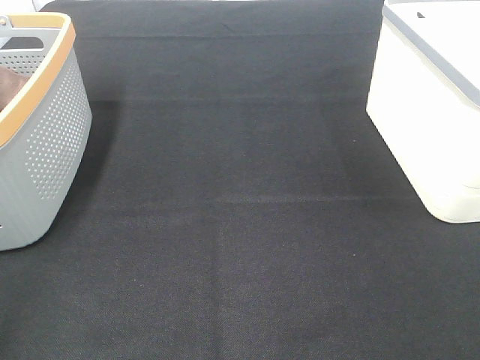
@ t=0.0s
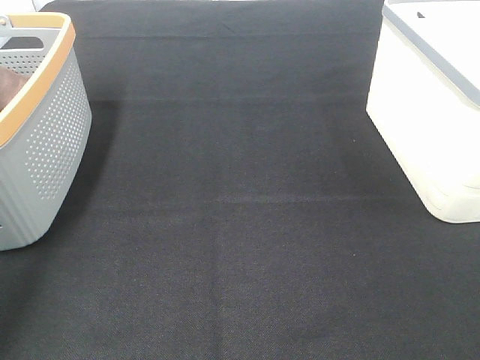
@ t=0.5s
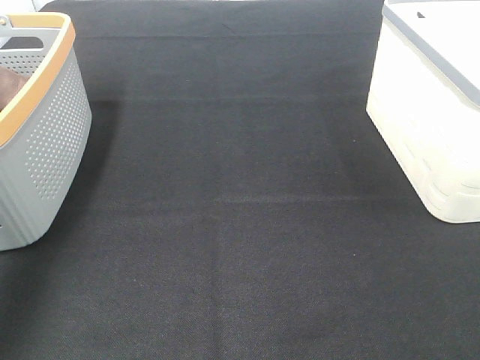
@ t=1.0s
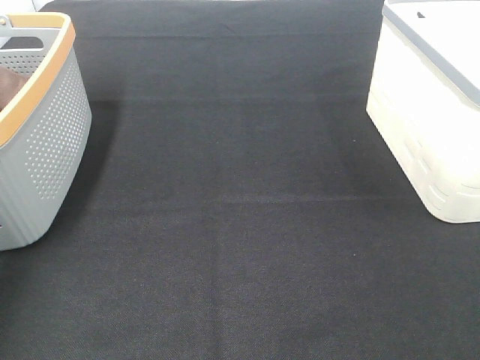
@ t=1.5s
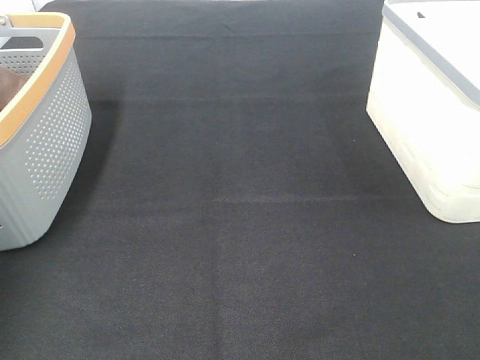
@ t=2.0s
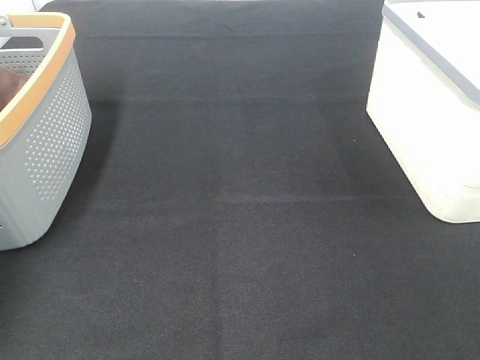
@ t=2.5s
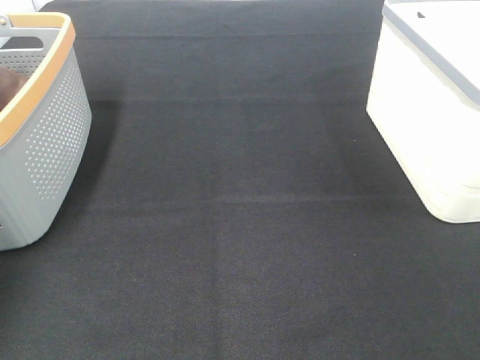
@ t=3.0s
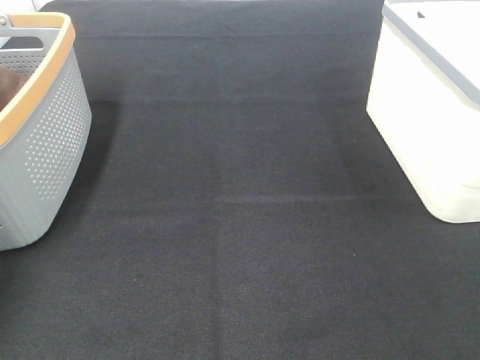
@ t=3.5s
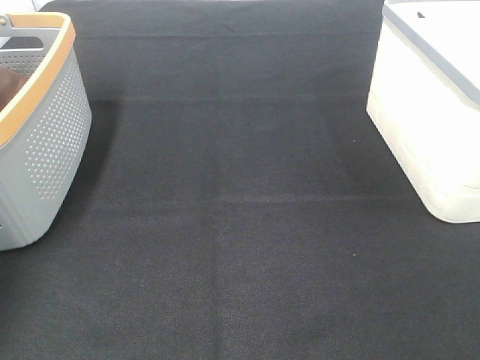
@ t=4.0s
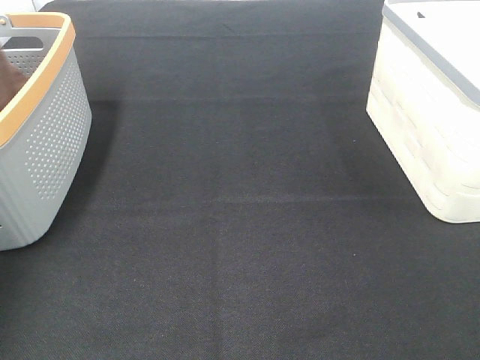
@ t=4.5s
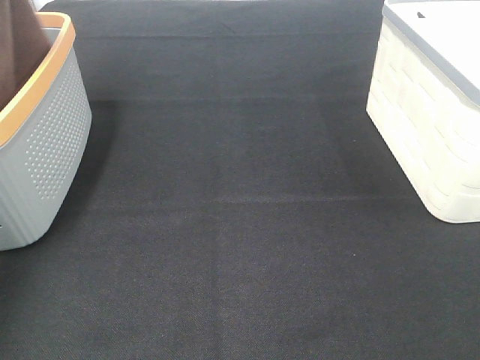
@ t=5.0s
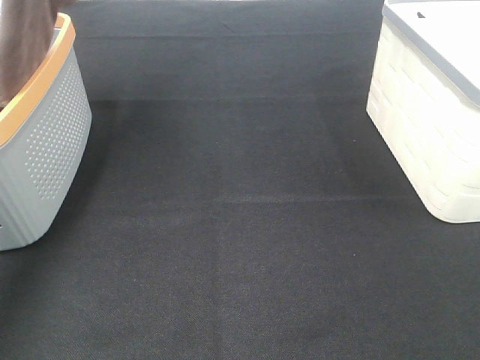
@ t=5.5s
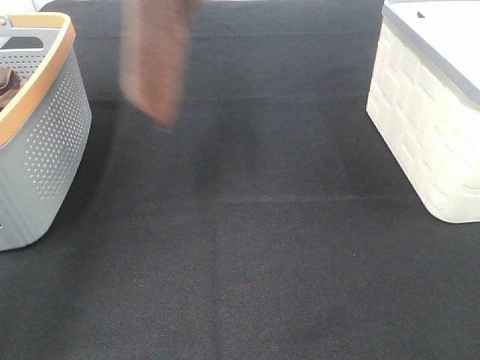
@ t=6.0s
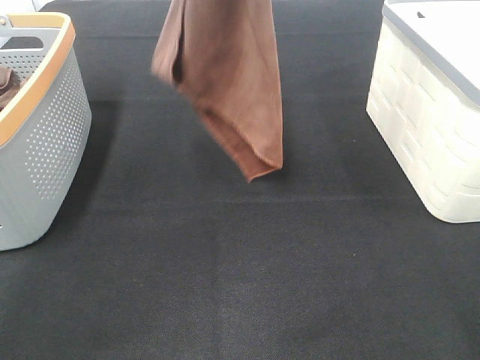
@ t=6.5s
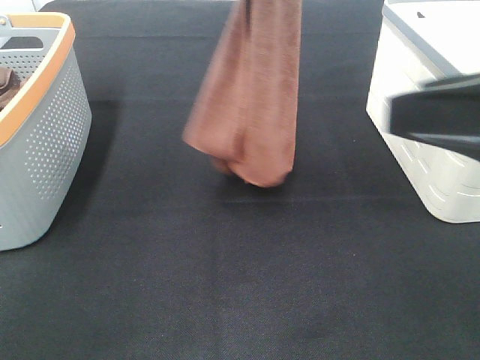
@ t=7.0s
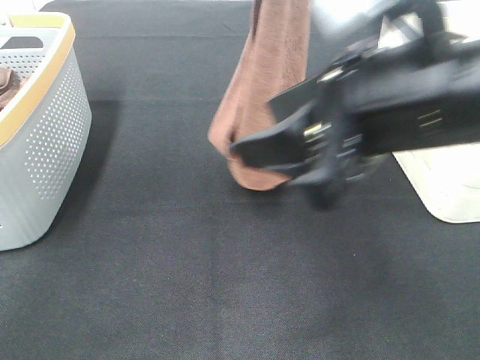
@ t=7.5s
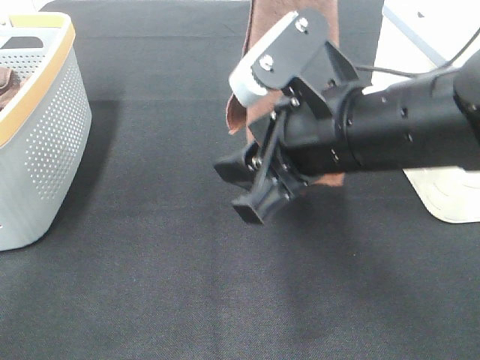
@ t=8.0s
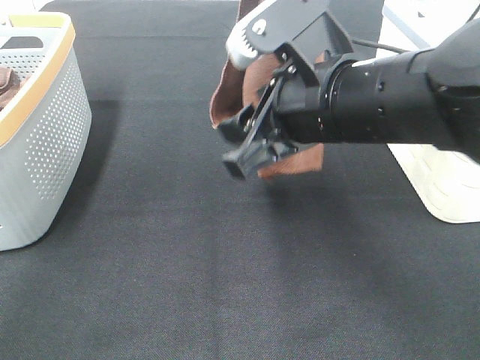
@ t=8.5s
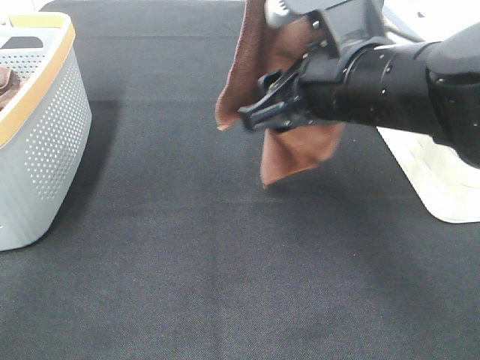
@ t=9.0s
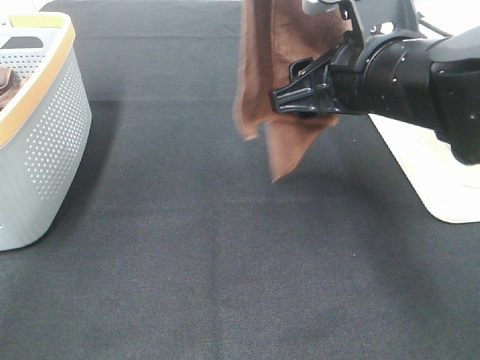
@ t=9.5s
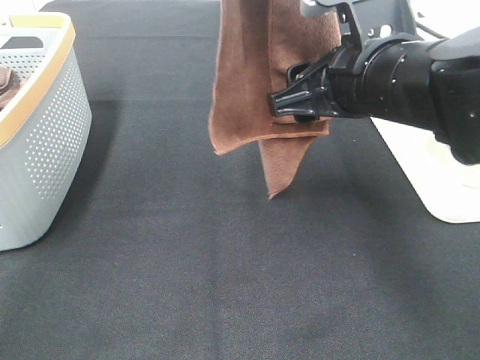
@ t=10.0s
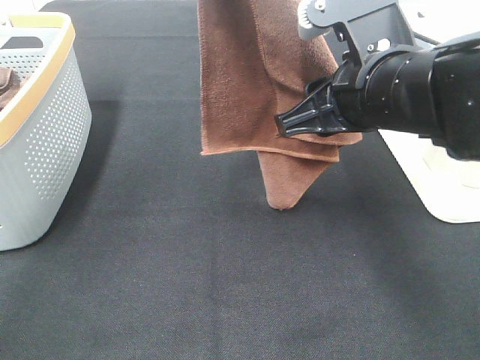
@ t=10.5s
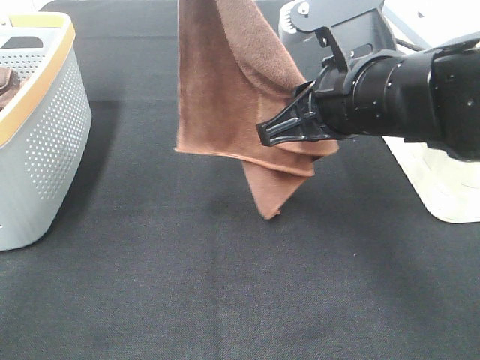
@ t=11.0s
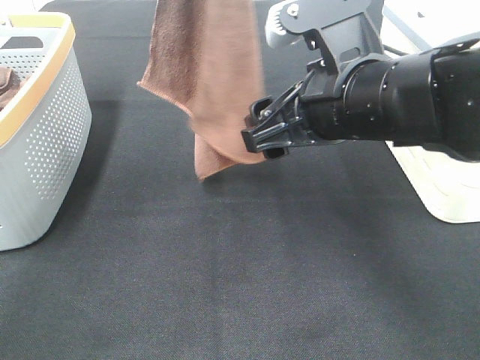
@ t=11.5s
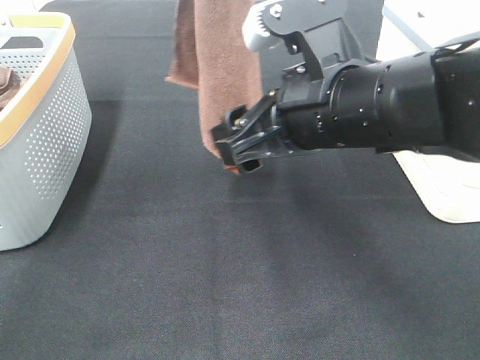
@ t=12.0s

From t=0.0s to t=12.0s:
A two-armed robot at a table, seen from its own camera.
Task of the whole recording: Remove the towel and place it.
From t=0.0s to t=2.0s: The left gripper goes roughly 40 cm forward.
From t=4.0s to t=6.0s: The left gripper shifts about 30 cm to the right, upward and backward.
From t=6.0s to t=8.0s: The right gripper is displaced forward and to the left by approximately 30 cm. The left gripper travels to the right and downward by about 15 cm.
From t=8.0s to t=10.0s: The right gripper moves roughly 5 cm.

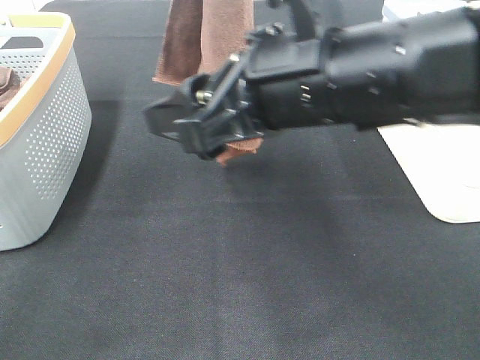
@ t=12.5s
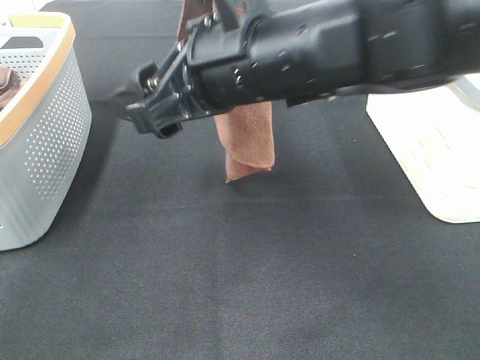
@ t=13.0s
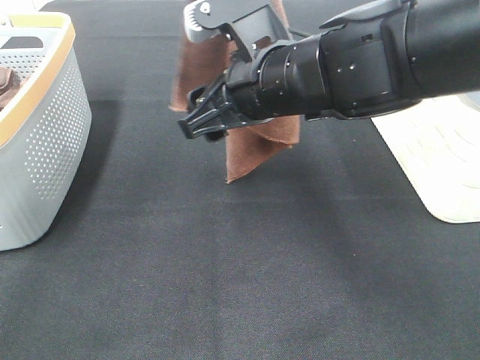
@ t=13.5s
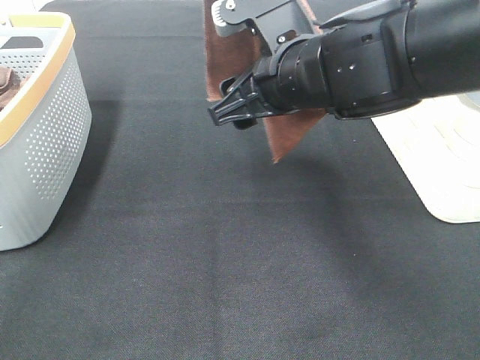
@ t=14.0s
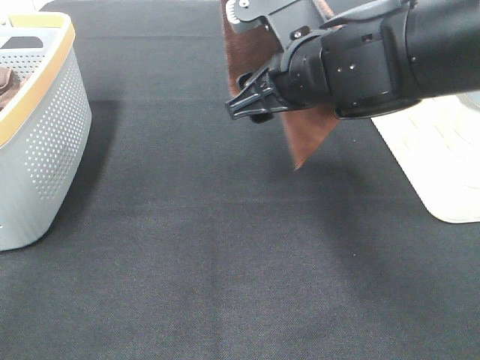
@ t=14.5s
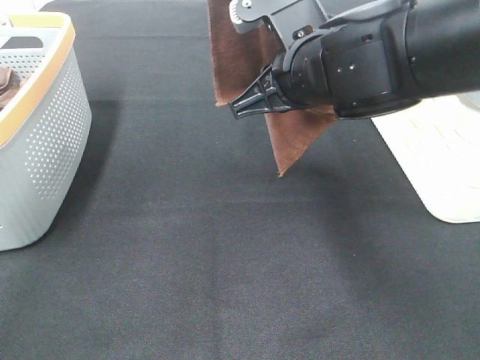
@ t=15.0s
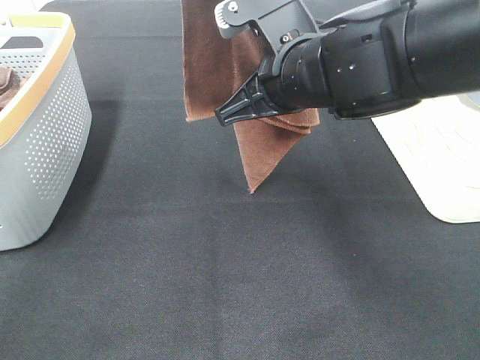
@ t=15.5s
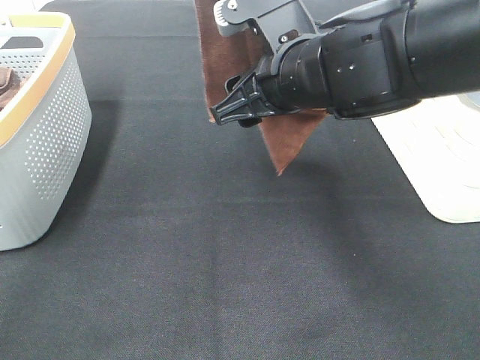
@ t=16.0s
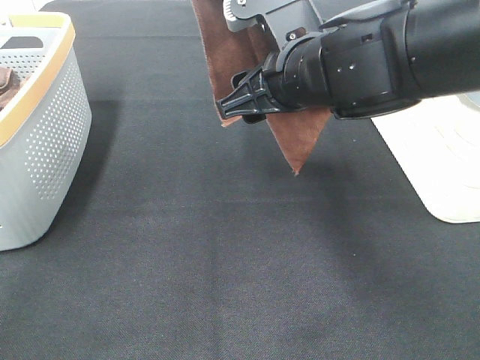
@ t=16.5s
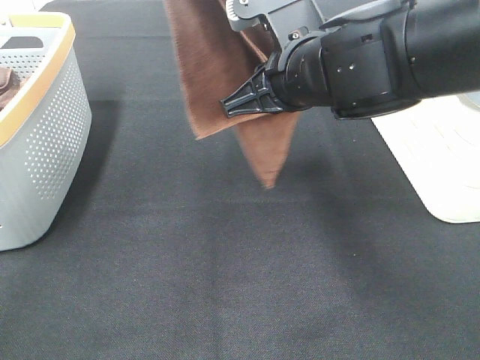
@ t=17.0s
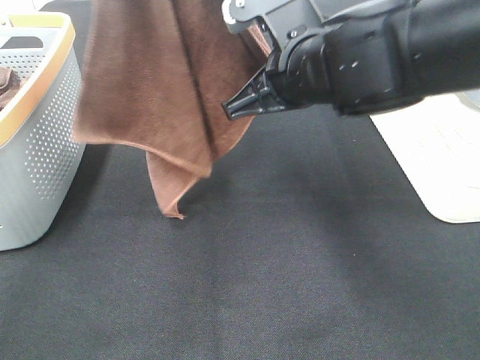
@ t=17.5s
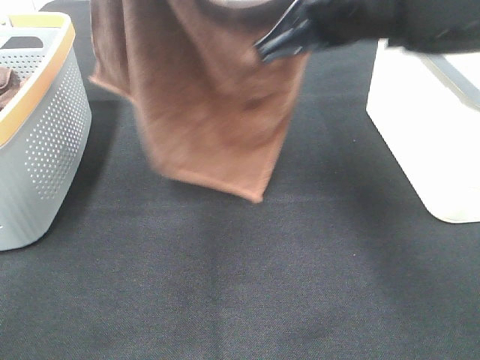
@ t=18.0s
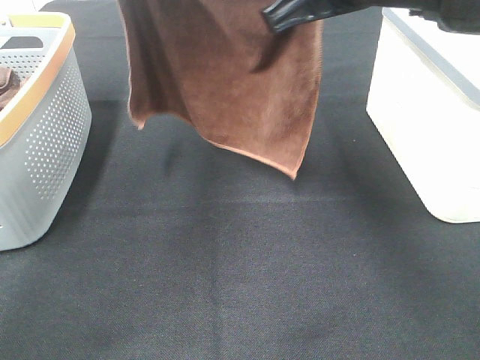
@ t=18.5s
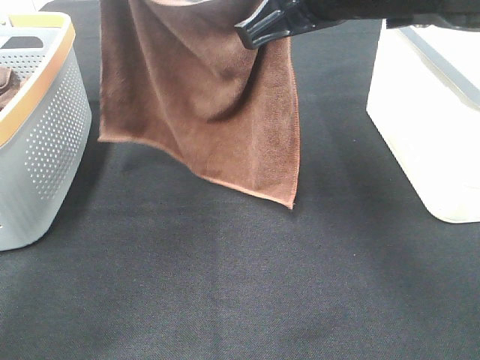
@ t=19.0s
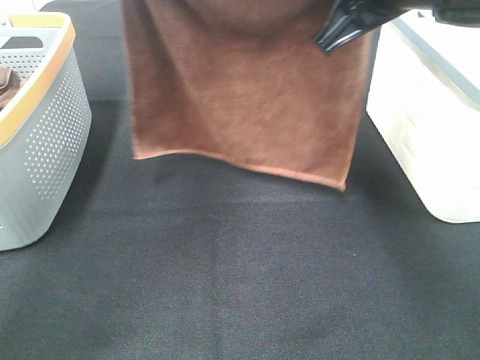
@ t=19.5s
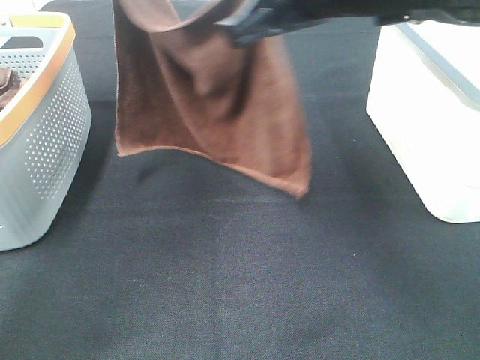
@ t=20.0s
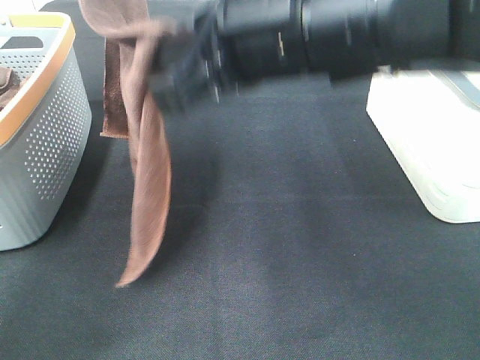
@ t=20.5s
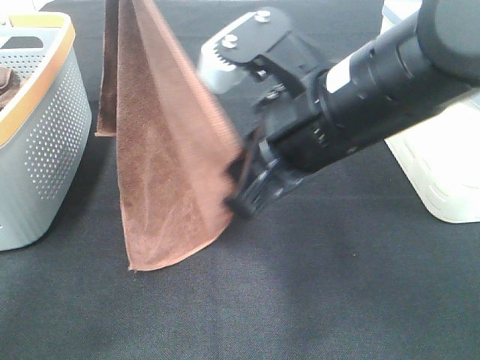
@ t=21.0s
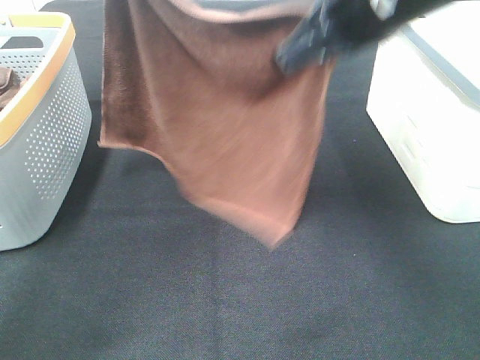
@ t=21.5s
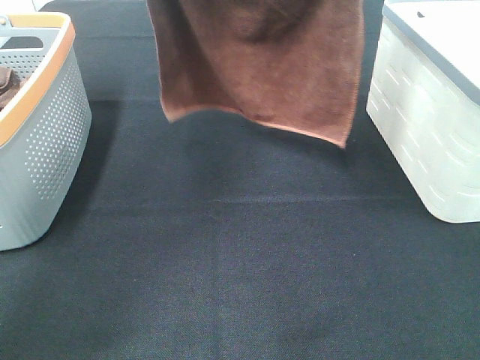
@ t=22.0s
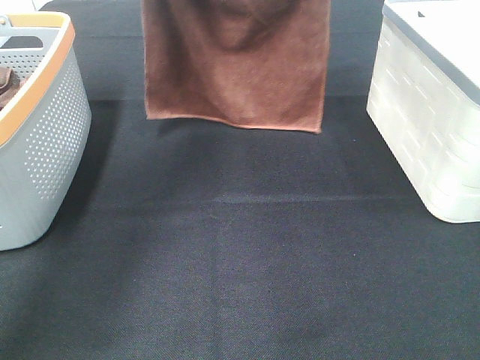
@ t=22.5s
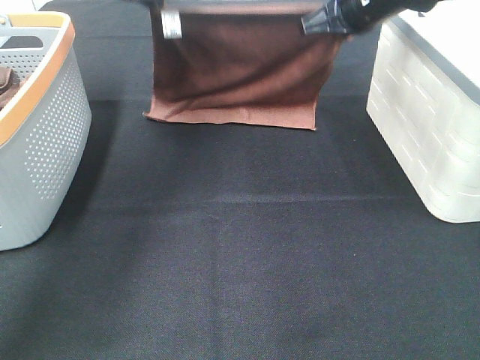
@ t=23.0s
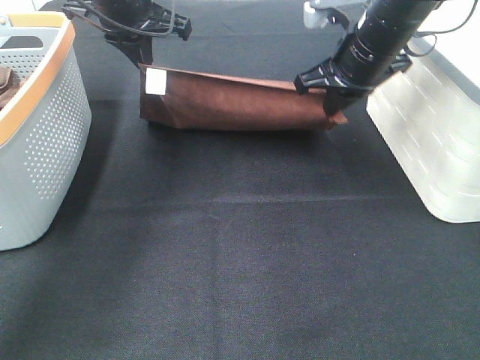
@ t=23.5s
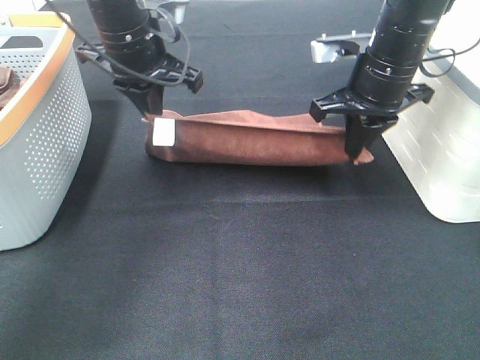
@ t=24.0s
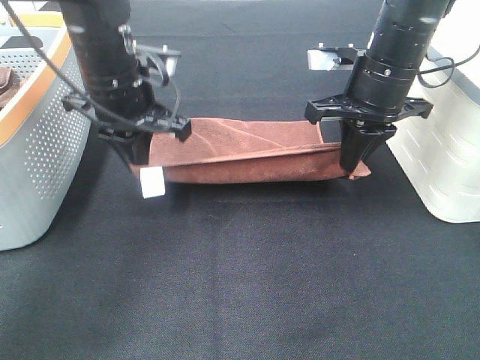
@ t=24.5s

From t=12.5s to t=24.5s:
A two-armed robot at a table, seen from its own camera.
Task of the whole recording: Remove the towel and place it.
Step, from t=12.5s to t=16.0s: Right hand: grab a corner of the brown towel and straighten it.
Step, from t=16.5s to t=19.0s: Left hand: spread the brown towel flat on the table.
Step, from t=16.5s to t=19.0s: Right hand: spread the brown towel flat on the table.
From t=12.5s to t=14.5s: The right gripper travels forward by approximately 10 cm.
From t=14.5s to t=16.5s: The right gripper closes, then reopens.
From t=16.5s to t=18.5s: The right gripper heads upward, covering approximately 10 cm, and closes its fingers; the left gripper goes roughly 10 cm forward.
From t=18.5s to t=20.5s: The right gripper travels to the left by roughly 5 cm.
From t=20.5s to t=22.5s: The left gripper heads forward and downward, covering about 15 cm. Meanwhile the right gripper shifts roughly 25 cm forward and to the right.
From t=22.5s to t=24.5s: The right gripper is displaced downward and backward by approximately 10 cm. Meanwhile the left gripper travels downward and backward by roughly 20 cm.

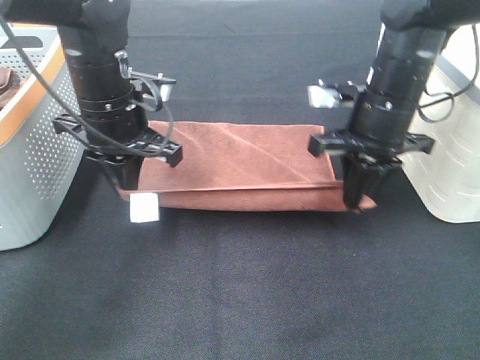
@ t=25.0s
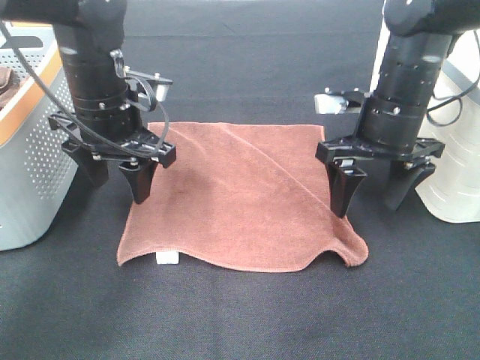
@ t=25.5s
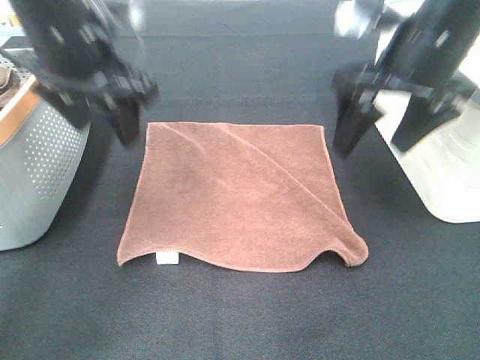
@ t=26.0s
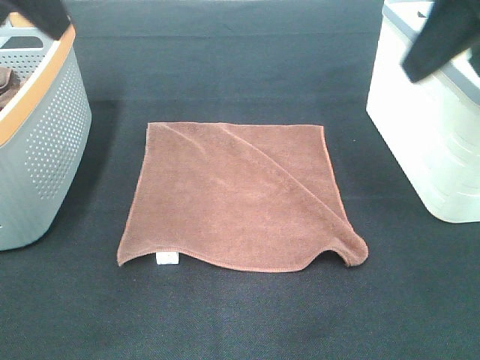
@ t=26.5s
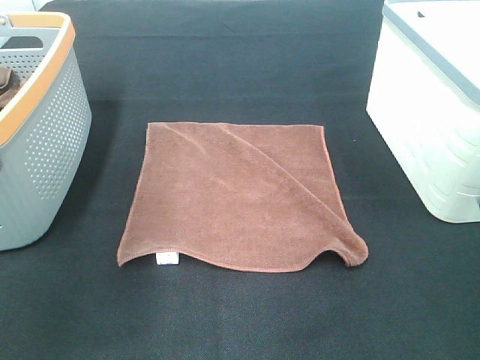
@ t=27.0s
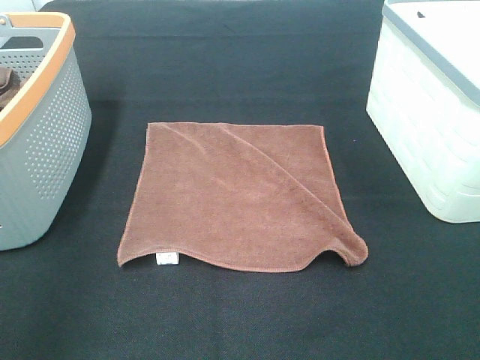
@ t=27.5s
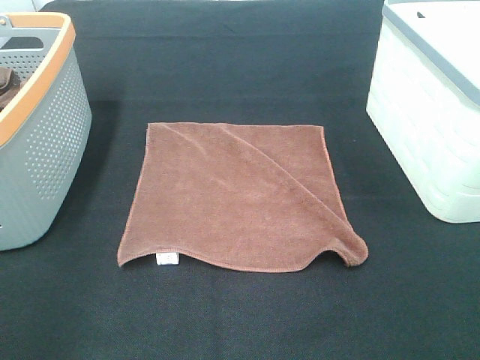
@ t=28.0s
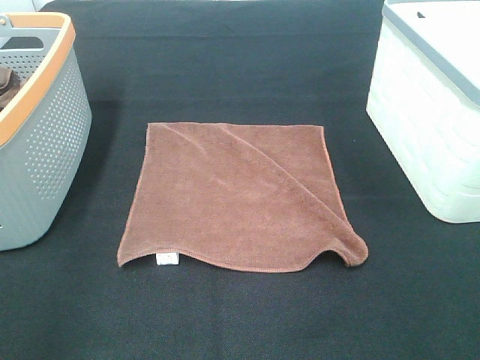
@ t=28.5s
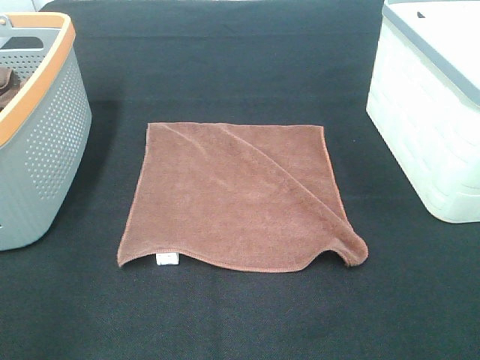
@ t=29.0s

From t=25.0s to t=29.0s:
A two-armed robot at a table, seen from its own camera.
Task of the whole recording: Remove the towel and place it.
From t=25.0s to t=27.0s: The right gripper goes approximately 25 cm backward and upward, and opens its fingers. The left gripper is displaced backward, upward and to the left by some 25 cm, and opens.
